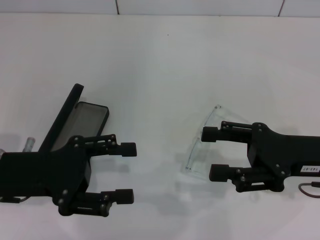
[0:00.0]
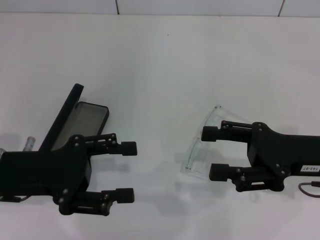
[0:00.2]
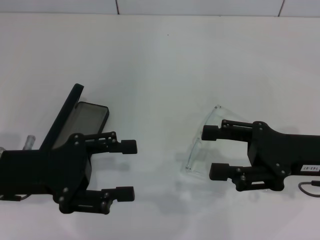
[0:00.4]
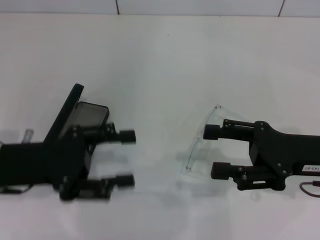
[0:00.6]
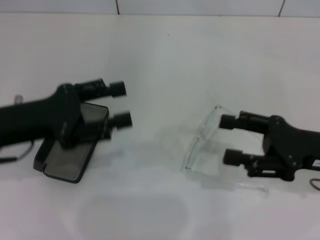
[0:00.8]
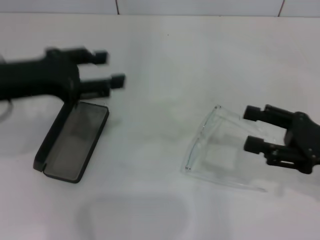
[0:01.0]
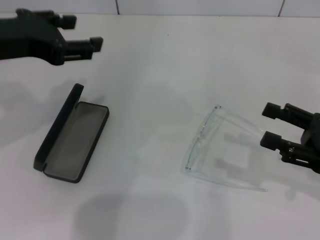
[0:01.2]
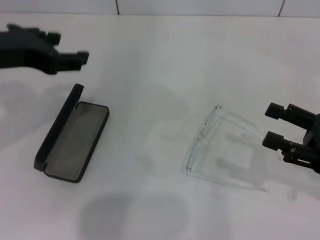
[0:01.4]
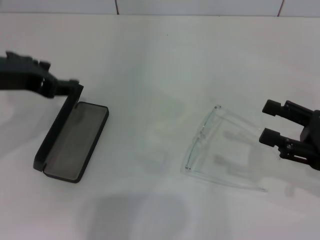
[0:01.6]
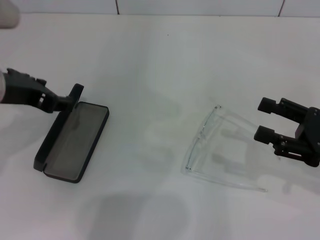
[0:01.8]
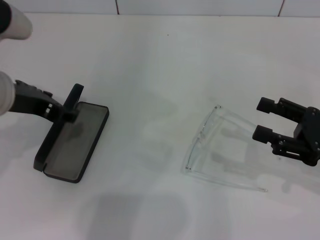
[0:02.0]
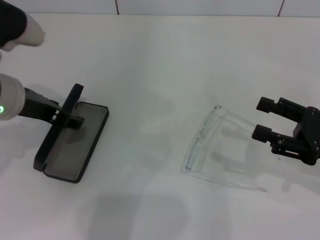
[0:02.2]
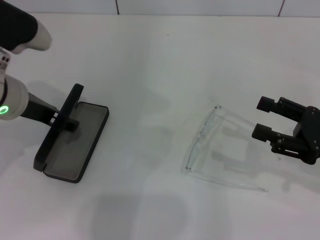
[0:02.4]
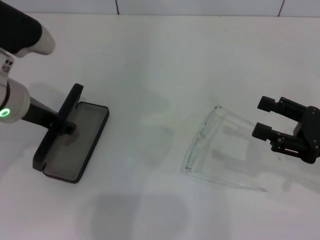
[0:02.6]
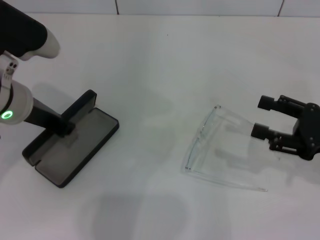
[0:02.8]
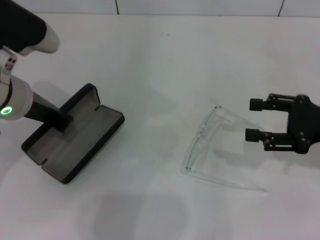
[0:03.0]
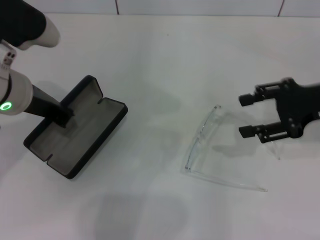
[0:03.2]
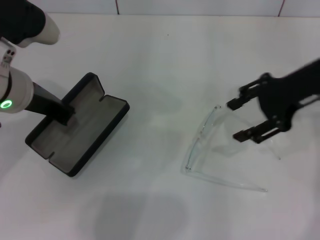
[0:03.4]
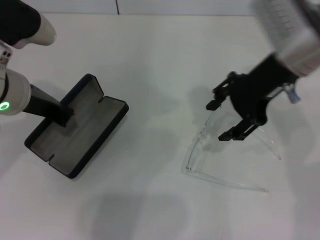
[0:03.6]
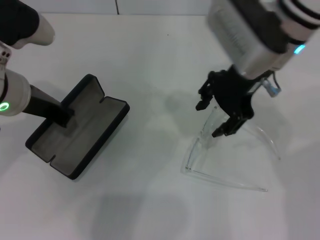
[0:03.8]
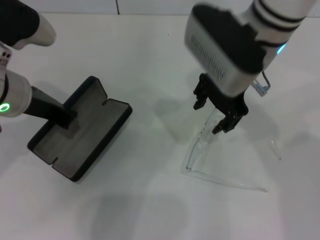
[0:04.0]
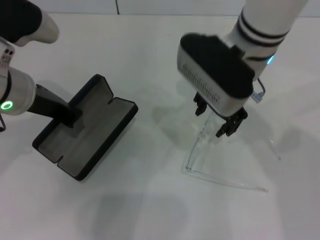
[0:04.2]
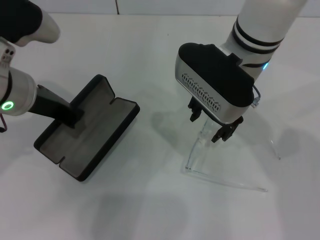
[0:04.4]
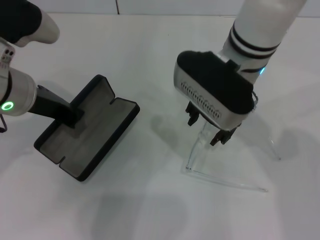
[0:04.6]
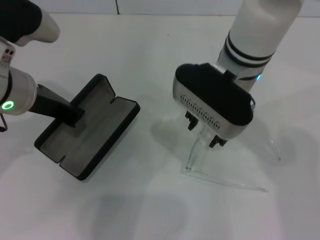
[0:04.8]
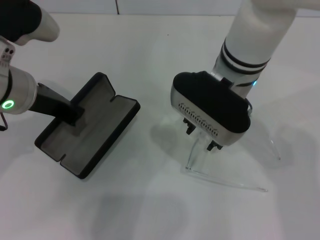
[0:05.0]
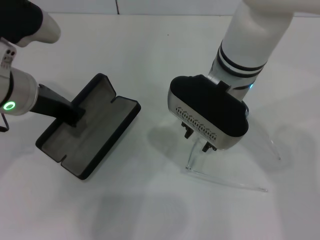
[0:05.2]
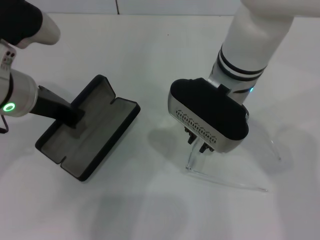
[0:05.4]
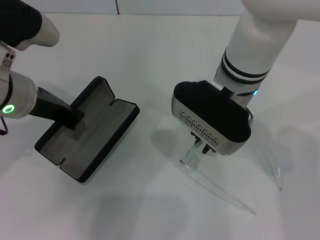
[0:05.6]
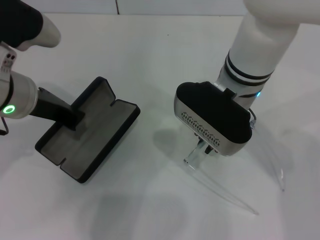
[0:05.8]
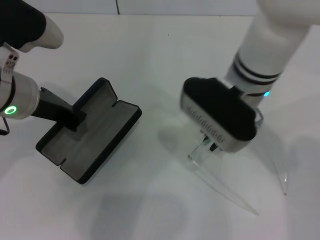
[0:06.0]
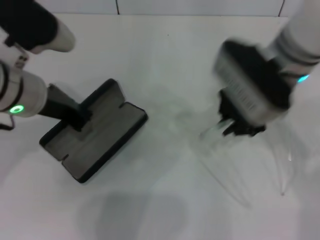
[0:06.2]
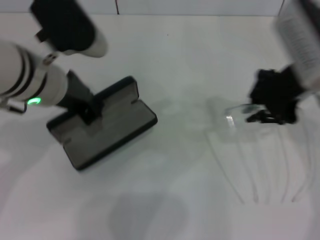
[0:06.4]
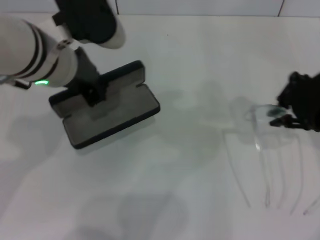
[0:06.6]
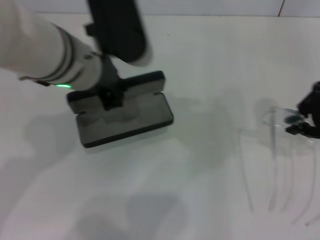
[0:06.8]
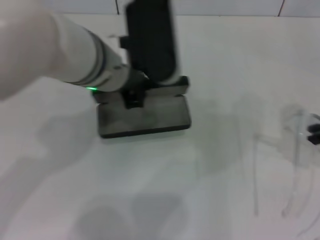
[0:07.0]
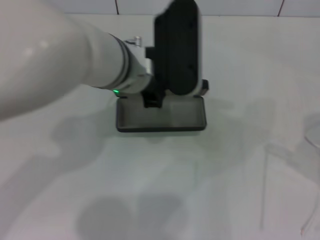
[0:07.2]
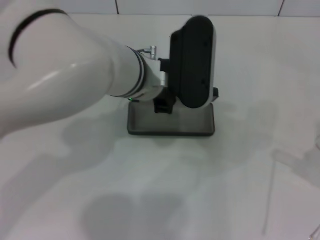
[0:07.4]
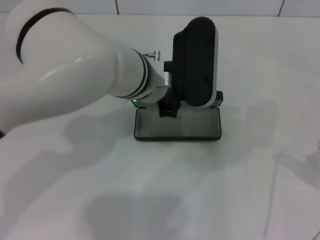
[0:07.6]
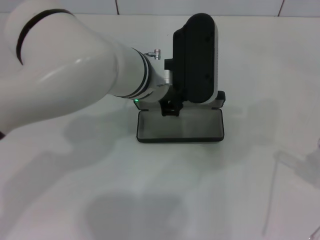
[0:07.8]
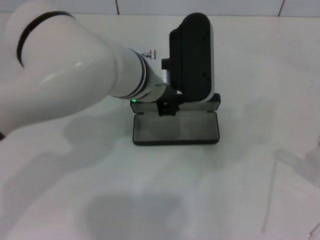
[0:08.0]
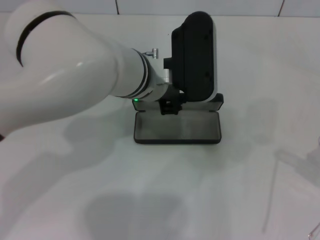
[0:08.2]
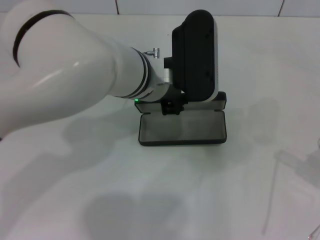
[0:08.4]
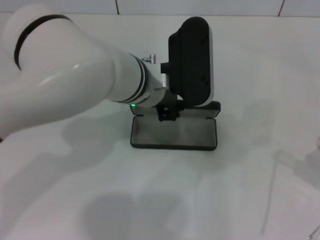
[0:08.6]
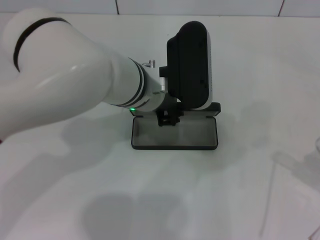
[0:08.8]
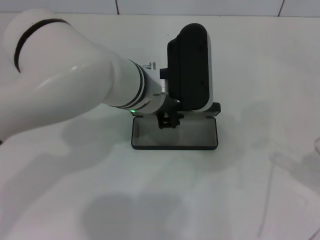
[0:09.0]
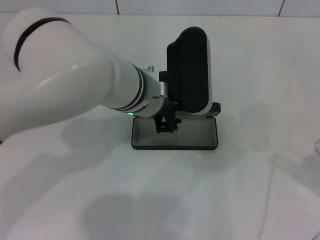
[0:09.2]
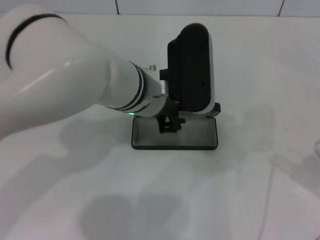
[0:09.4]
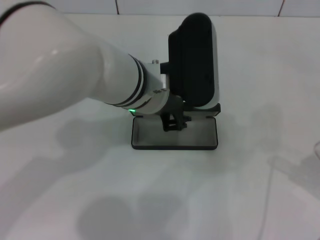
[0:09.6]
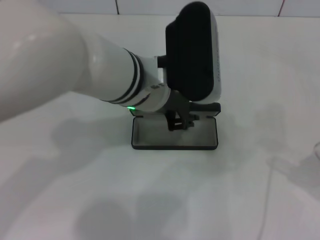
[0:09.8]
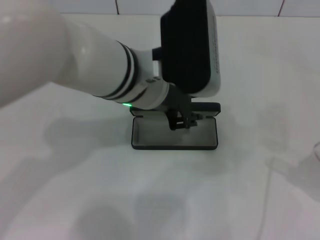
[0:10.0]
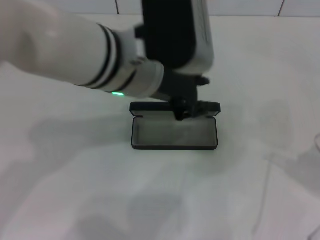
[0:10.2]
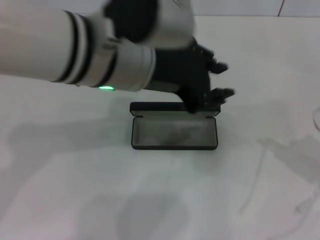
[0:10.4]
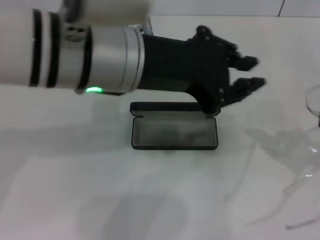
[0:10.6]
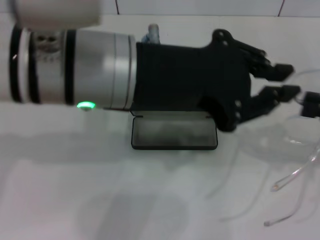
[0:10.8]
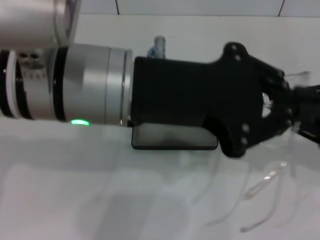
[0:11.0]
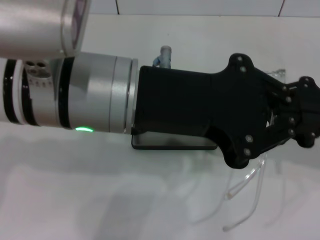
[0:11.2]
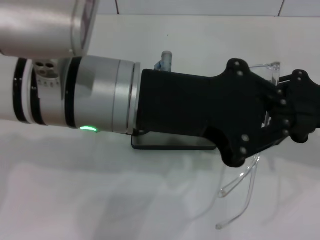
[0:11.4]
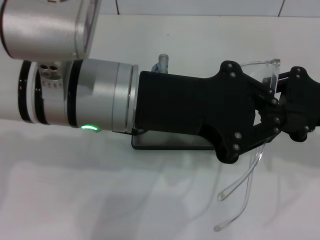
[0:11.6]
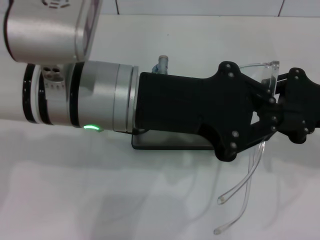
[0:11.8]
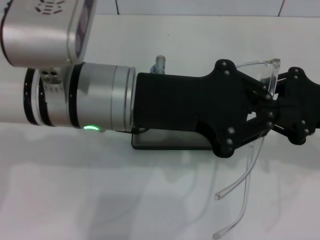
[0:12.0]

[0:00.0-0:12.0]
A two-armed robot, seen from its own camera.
Step, 0:00.0 to 0:02.8: Grab the glasses case with your left hand.
Step, 0:03.0 to 0:05.6: Grab the eyeglass frame with your right hand.
Step, 0:05.8 to 0:09.0: Place the glasses case in the center of the table with your left hand.
0:00.0 to 0:01.6: The right gripper is displaced to the right by roughly 5 cm. The left gripper travels upward and forward by some 15 cm.
0:01.6 to 0:03.0: The right gripper travels forward by some 5 cm. Meanwhile the left gripper goes approximately 5 cm downward, and closes.
0:03.0 to 0:04.4: The right gripper is displaced to the left by some 25 cm.
0:04.4 to 0:06.0: The right gripper closes its fingers.
0:06.0 to 0:07.6: The right gripper shifts roughly 30 cm to the right, while the left gripper shifts approximately 15 cm to the right.
0:07.6 to 0:09.0: The left gripper opens its fingers.
0:09.0 to 0:10.4: The left gripper is displaced upward by roughly 10 cm.
0:10.4 to 0:12.0: The right gripper shifts approximately 10 cm to the left. The left gripper closes up.

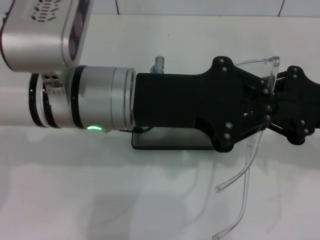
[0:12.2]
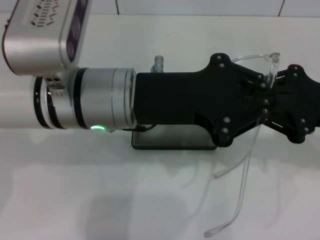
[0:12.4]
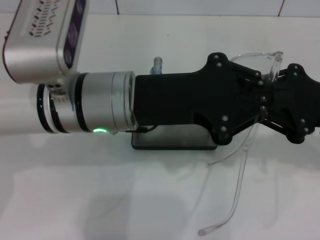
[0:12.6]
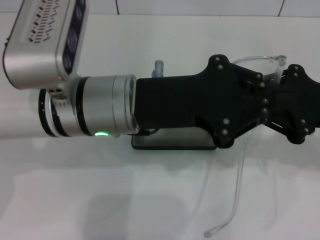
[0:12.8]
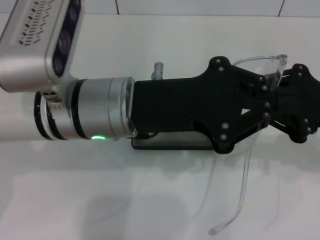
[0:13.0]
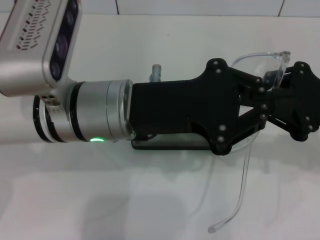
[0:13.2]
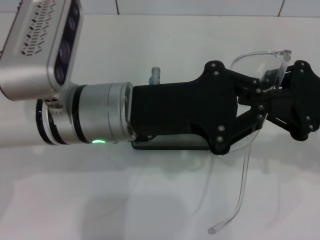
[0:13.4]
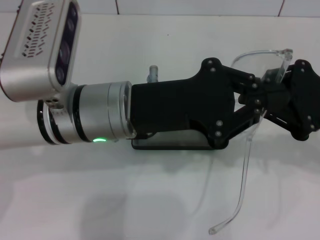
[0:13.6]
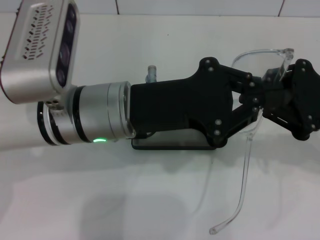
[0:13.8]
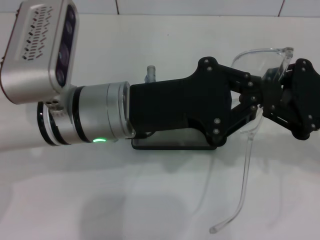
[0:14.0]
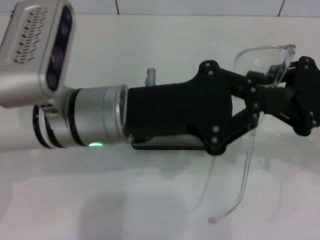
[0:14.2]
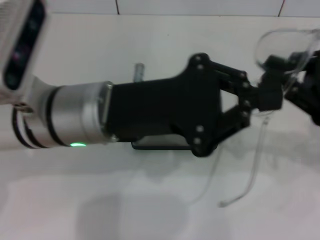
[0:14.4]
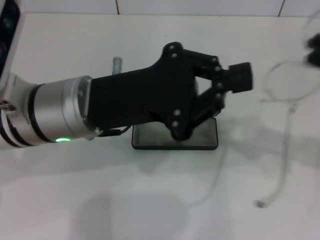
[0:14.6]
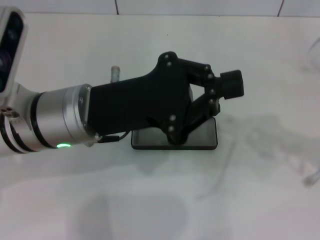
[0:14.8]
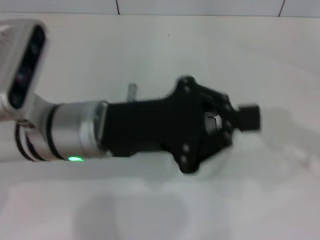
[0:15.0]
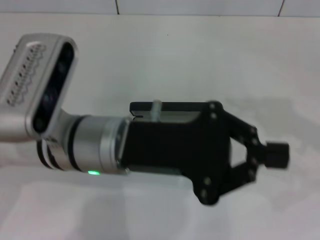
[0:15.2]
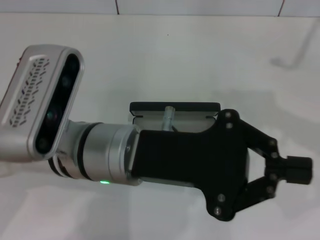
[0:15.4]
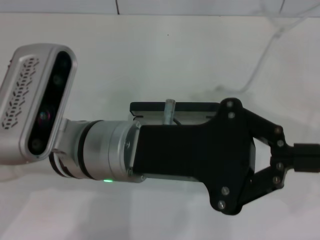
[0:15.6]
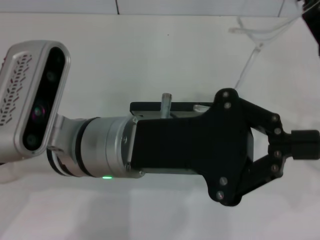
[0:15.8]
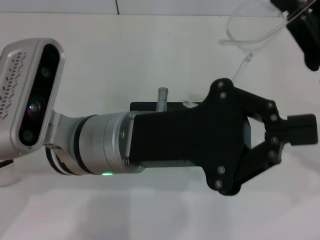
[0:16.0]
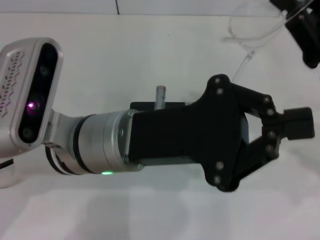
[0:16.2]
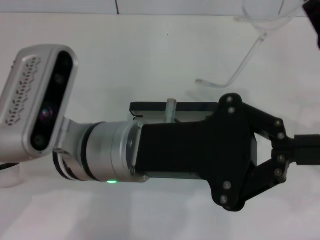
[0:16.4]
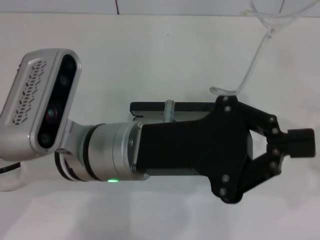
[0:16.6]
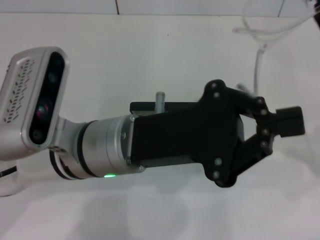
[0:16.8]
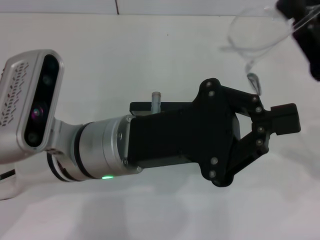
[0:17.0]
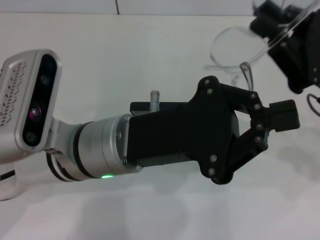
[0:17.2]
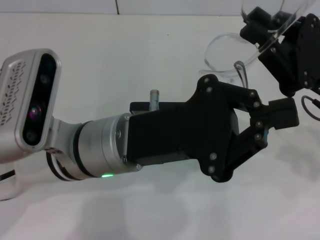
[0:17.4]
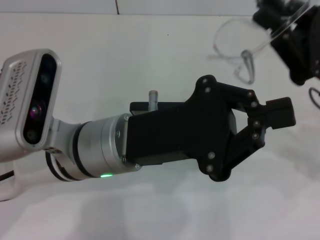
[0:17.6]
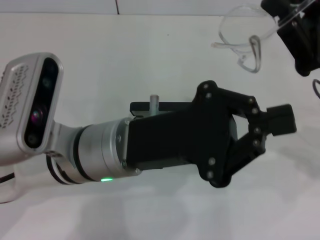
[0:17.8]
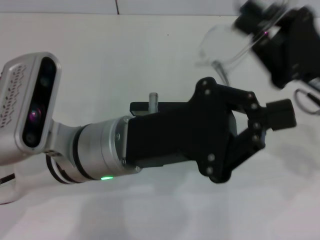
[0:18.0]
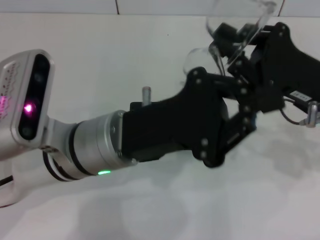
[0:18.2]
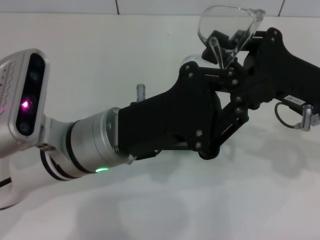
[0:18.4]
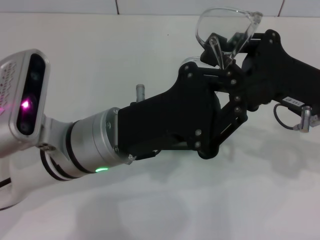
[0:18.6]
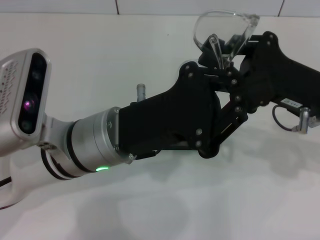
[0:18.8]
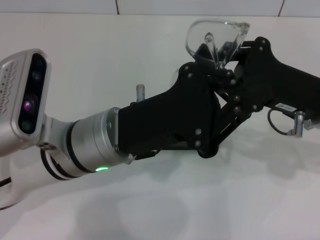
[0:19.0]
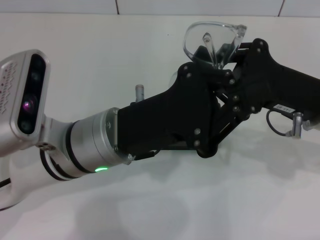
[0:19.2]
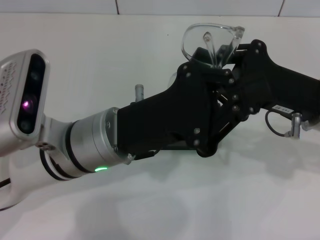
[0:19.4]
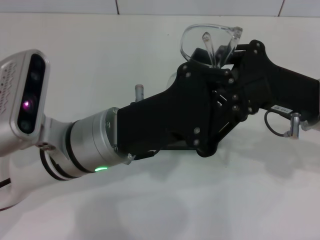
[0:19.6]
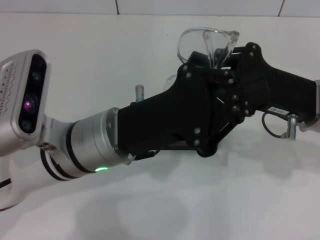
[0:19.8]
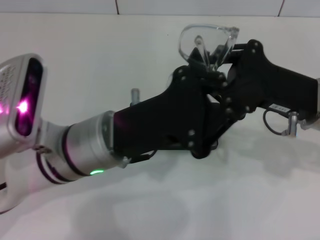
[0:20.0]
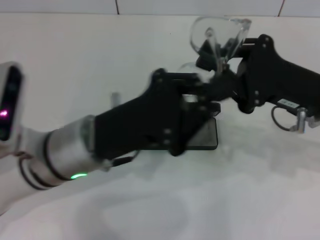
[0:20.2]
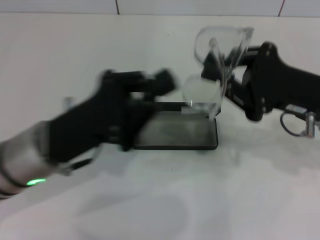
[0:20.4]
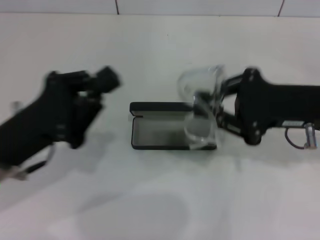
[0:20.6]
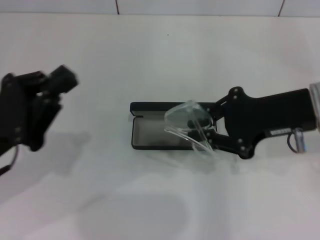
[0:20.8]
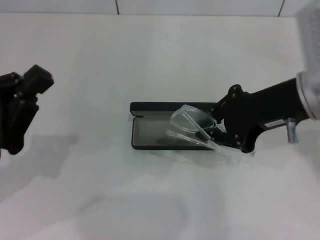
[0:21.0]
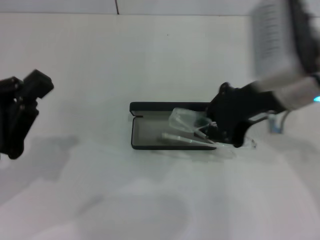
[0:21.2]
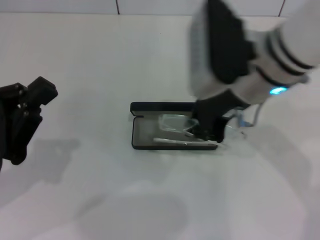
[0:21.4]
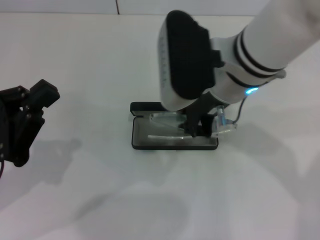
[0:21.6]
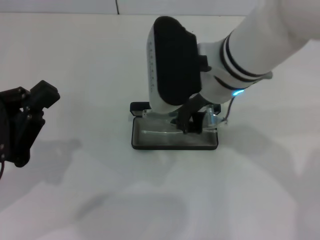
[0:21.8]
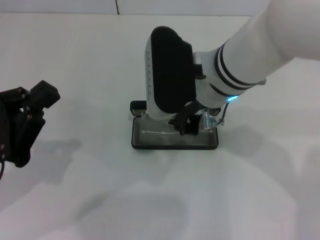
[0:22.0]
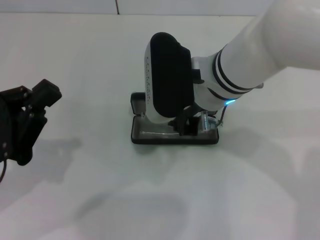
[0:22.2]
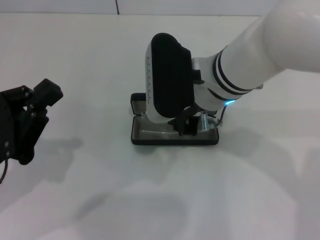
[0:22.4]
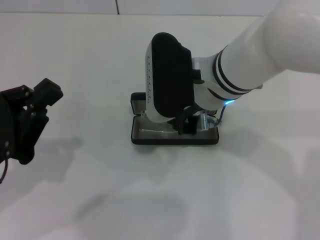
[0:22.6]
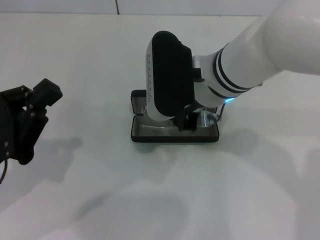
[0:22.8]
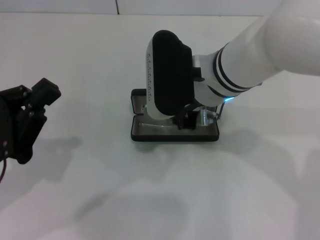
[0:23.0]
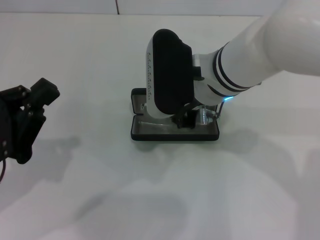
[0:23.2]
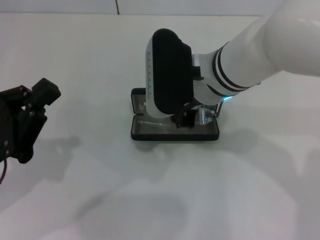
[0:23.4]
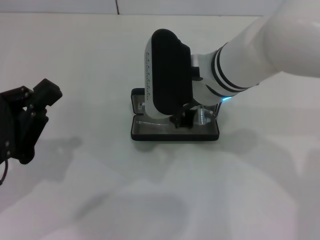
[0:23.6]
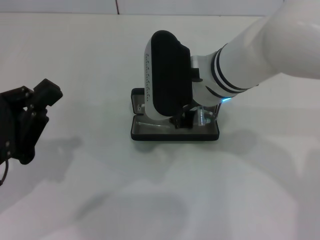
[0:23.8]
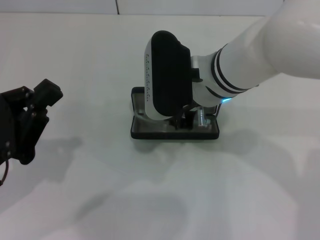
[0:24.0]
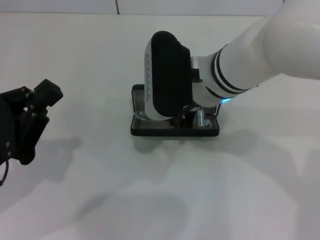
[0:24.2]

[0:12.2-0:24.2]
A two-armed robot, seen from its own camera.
Step, 0:12.2 to 0:20.0: Lift the glasses with your right hand.
0:12.2 to 0:13.8: There are only small adjustments of the grippers.
0:13.8 to 0:15.2: The right gripper travels to the right by roughly 5 cm.
0:15.2 to 0:16.6: The right gripper shifts some 5 cm to the left.
0:18.2 to 0:19.8: There are only small adjustments of the grippers.
0:19.8 to 0:21.2: The left gripper shifts about 20 cm to the left. The right gripper goes about 10 cm upward and to the left.
0:21.2 to 0:22.6: The right gripper heads to the left, covering approximately 10 cm.
0:22.6 to 0:24.2: Both grippers stay put.
